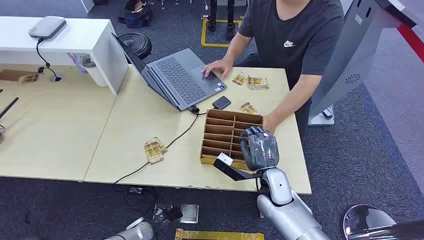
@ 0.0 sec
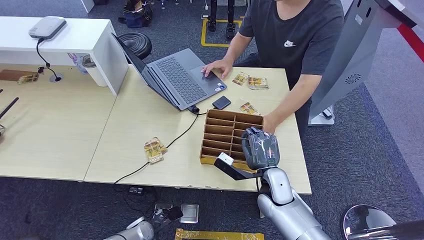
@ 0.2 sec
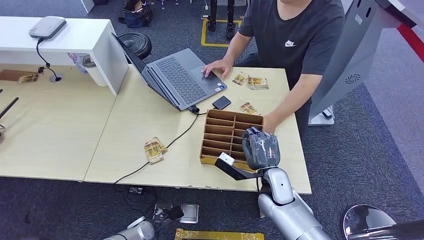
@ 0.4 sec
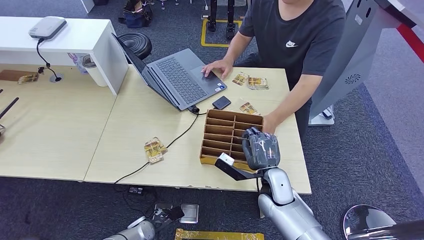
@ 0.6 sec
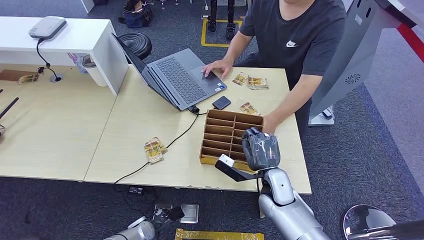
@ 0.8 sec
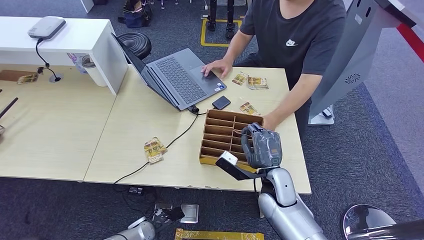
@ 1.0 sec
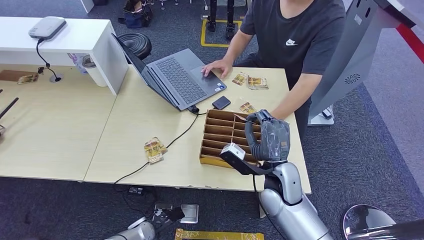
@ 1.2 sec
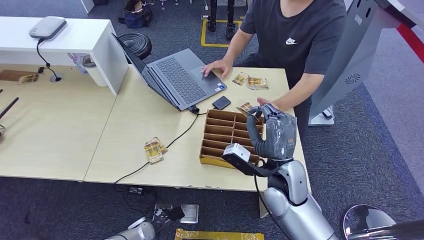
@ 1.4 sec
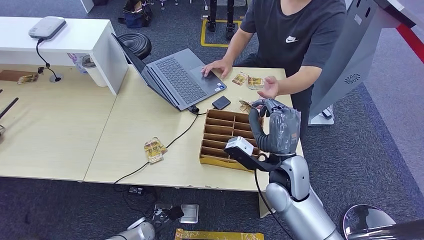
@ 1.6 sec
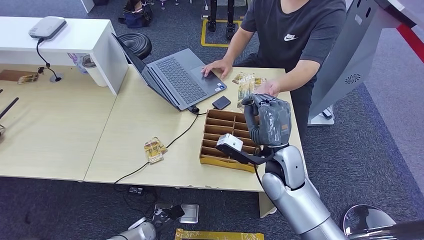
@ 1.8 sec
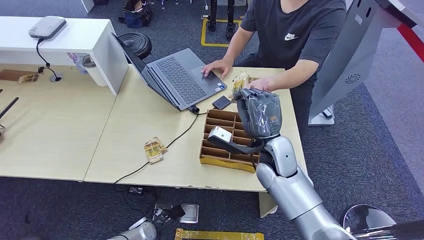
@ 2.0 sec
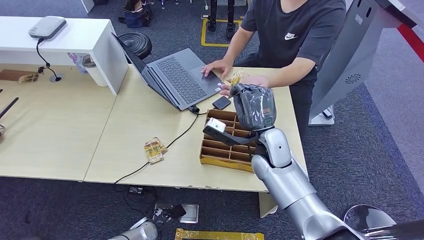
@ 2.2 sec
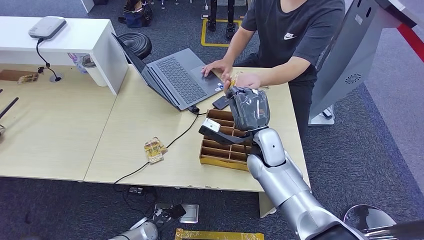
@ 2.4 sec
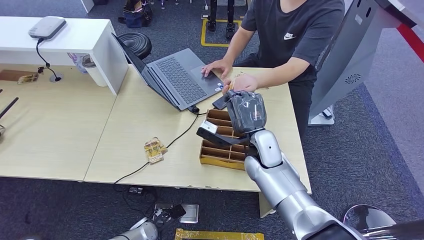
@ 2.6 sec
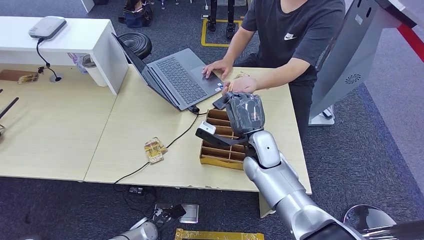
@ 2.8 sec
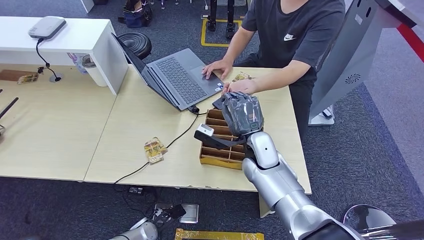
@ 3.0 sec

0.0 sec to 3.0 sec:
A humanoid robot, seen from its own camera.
Step, 0.0 sec to 1.0 sec: Pick up the room card from the card holder.
Step, 1.2 sec to 3.0 sec: Hand the room card to the target.
1.6 sec to 3.0 sec: There are only small adjustments of the hands.
